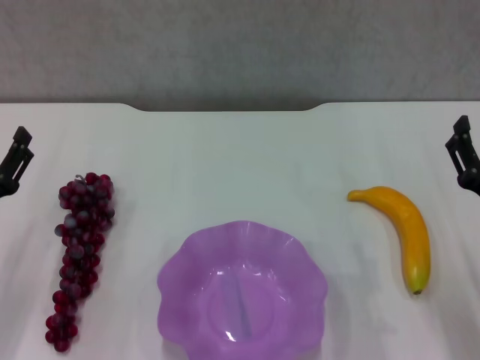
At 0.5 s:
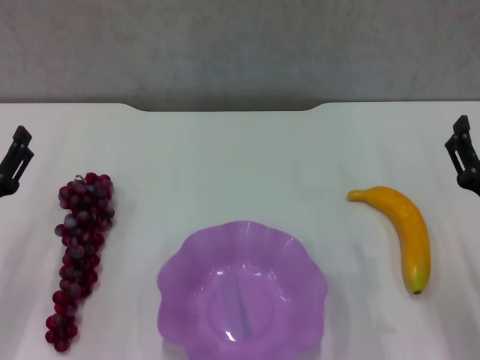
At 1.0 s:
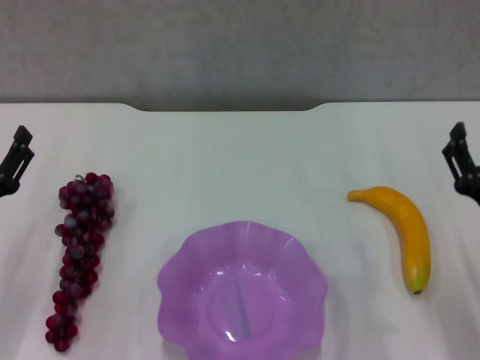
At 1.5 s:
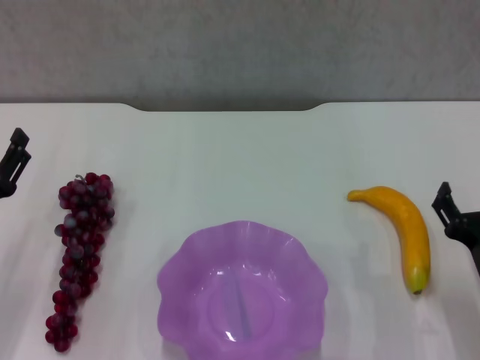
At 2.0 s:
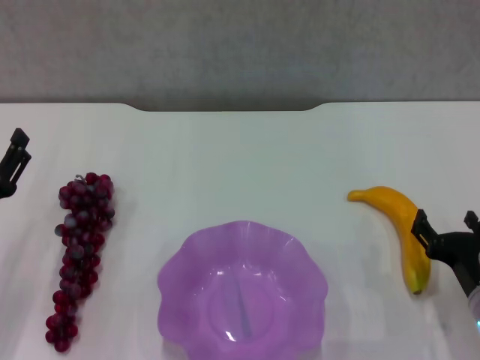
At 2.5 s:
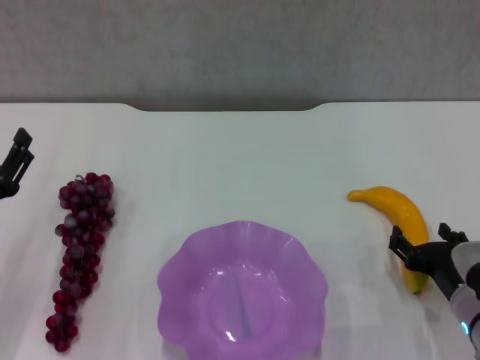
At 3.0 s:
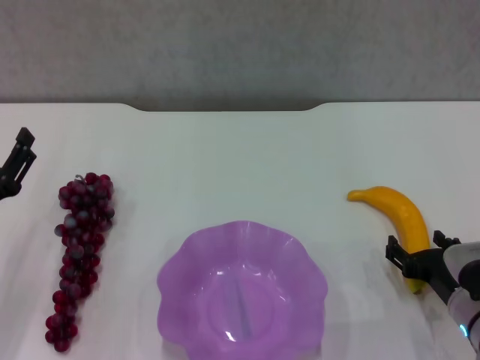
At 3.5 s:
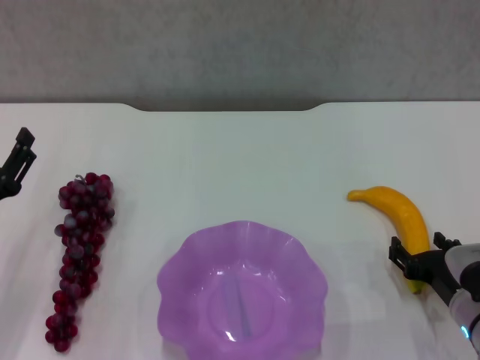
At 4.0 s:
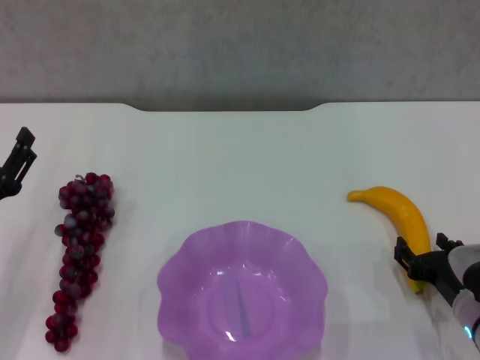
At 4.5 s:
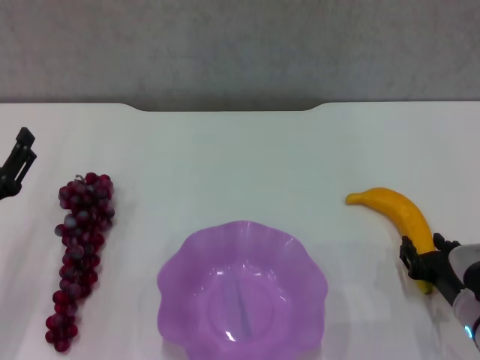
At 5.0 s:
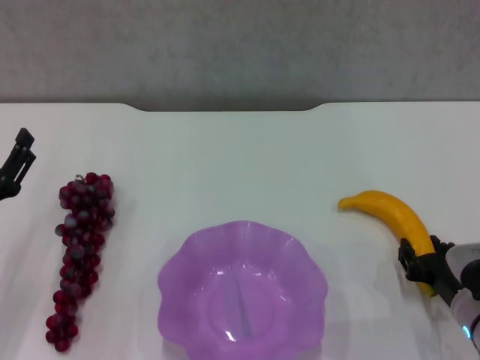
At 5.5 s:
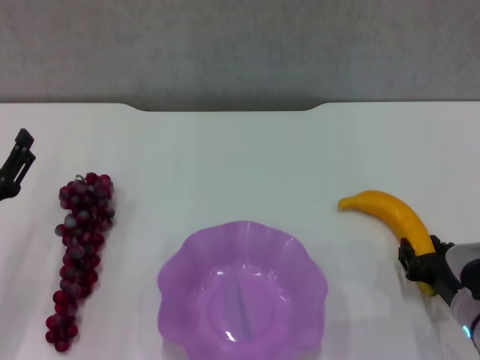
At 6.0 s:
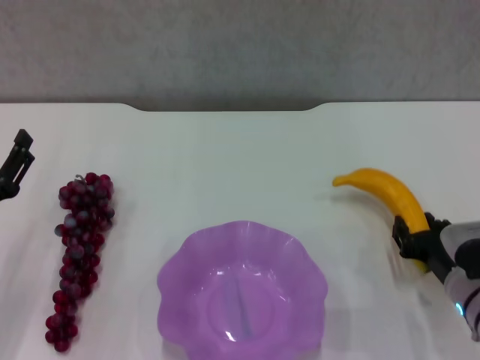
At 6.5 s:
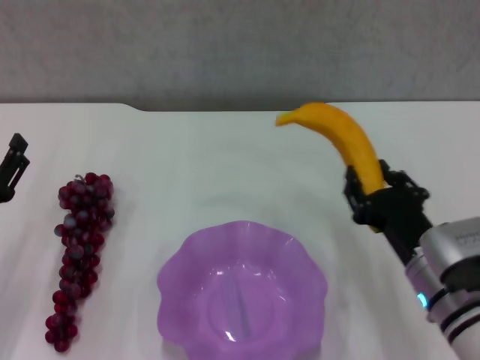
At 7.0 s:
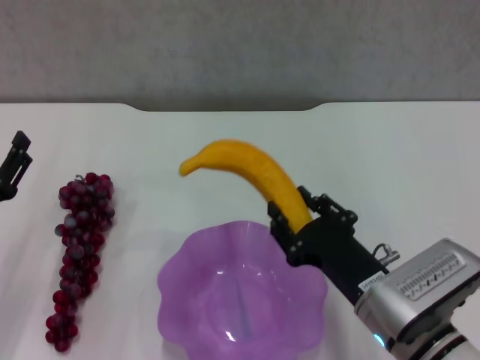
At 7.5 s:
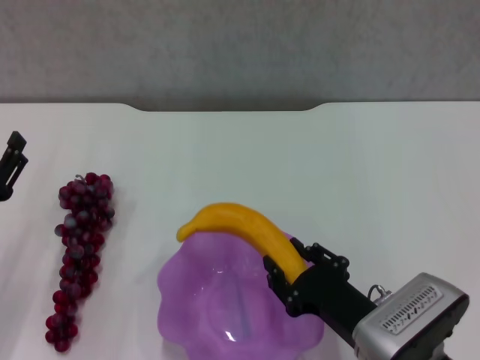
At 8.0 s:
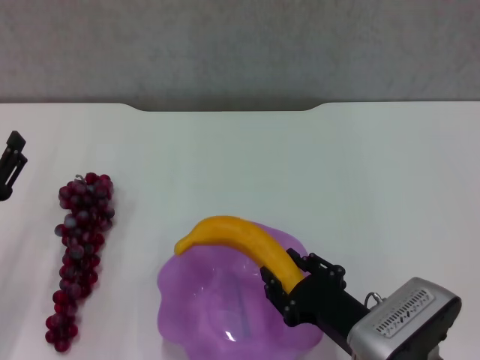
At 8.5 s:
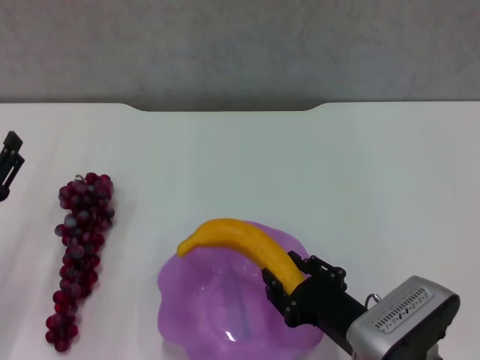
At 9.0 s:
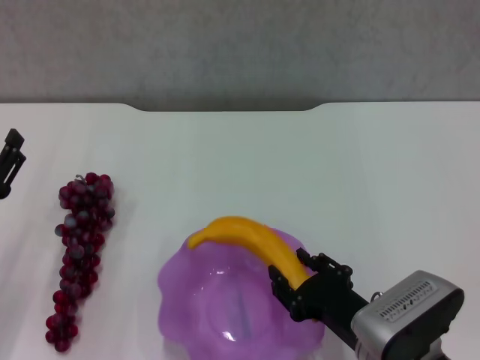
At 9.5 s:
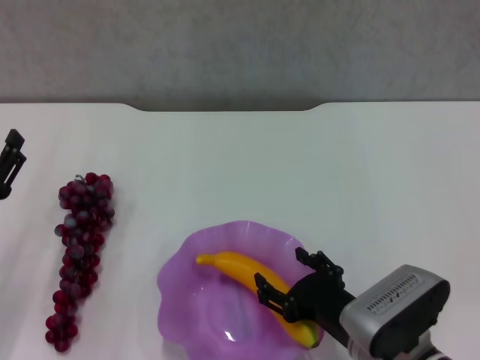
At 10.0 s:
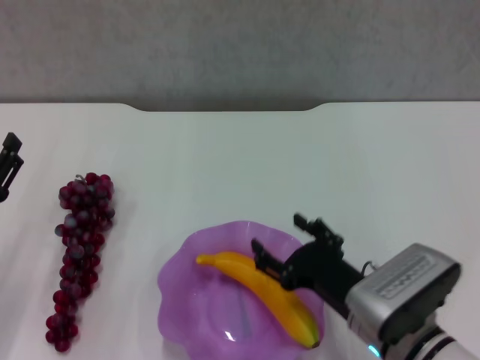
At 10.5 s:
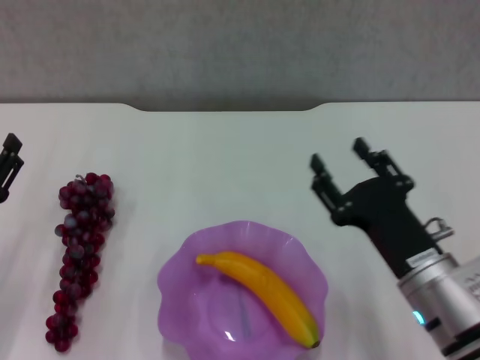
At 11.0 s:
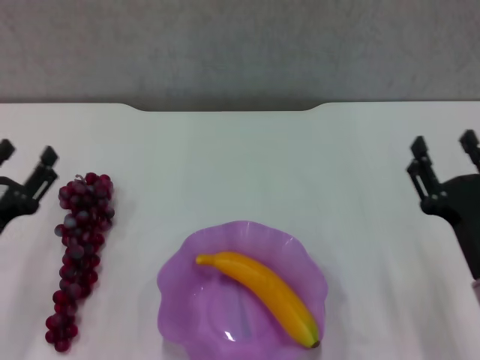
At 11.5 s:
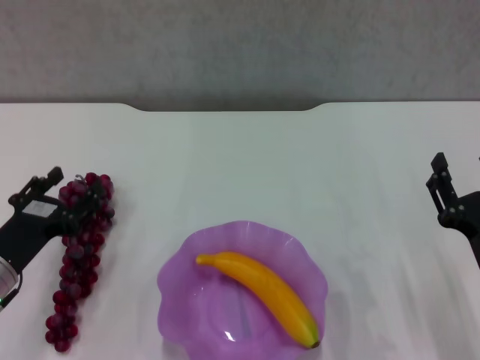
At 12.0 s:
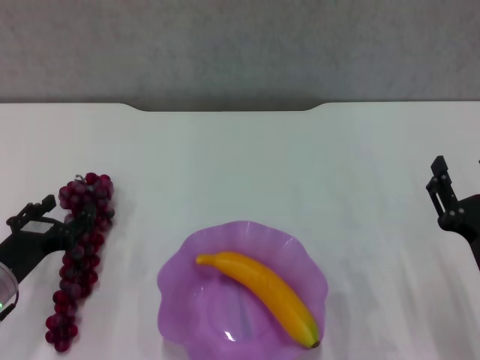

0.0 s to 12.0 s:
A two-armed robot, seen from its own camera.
Step, 0.0 to 4.5 s: Grasp the banana with right gripper.
Step, 5.0 to 9.0 s: Place the banana in the purple plate with right gripper.
0.0 to 2.0 s: The right gripper shifts some 5 cm downward.
2.0 to 4.0 s: The grippers move only a little.
4.0 to 6.0 s: The right gripper closes its fingers.
6.0 to 8.0 s: The right gripper heads to the left and backward, covering some 10 cm.
8.0 to 10.0 s: The right gripper opens its fingers.
10.0 to 12.0 s: The left gripper ends up roughly 5 cm from where it was. The right gripper goes some 10 cm to the right.

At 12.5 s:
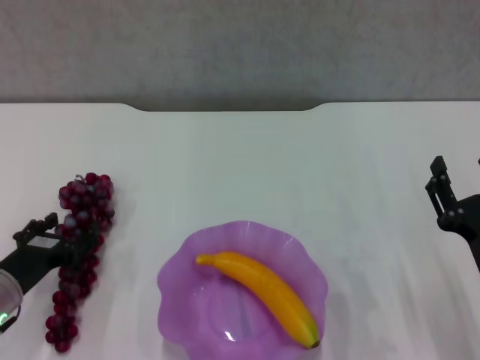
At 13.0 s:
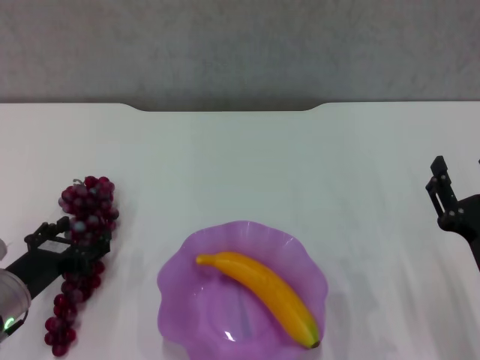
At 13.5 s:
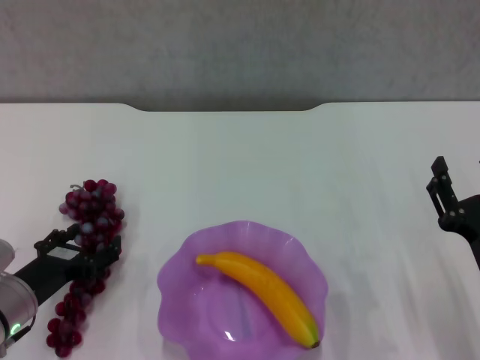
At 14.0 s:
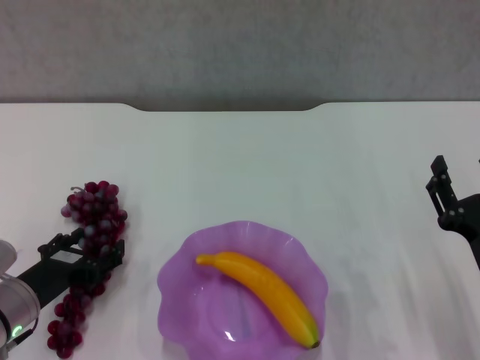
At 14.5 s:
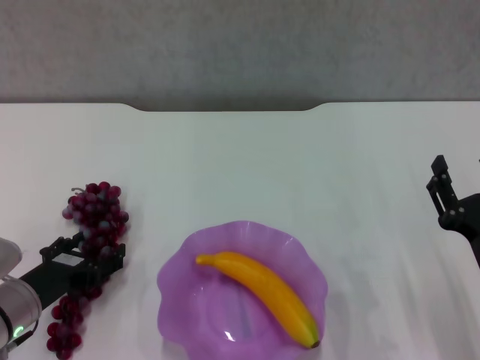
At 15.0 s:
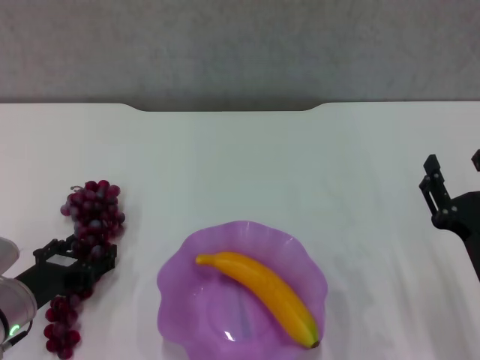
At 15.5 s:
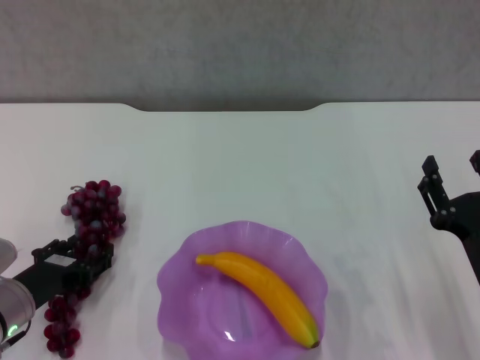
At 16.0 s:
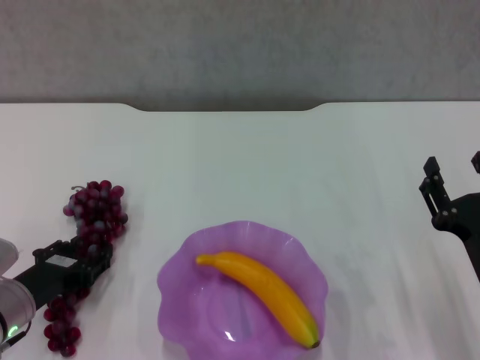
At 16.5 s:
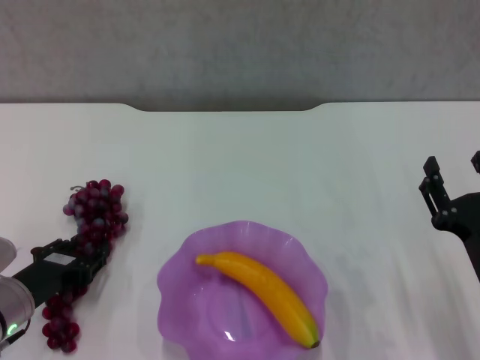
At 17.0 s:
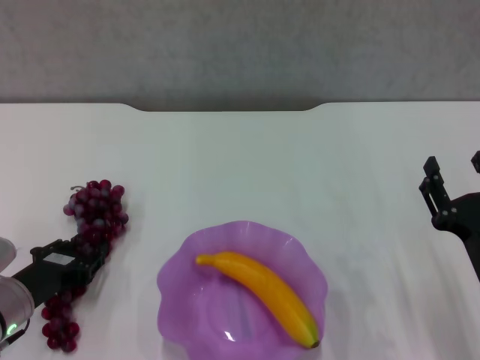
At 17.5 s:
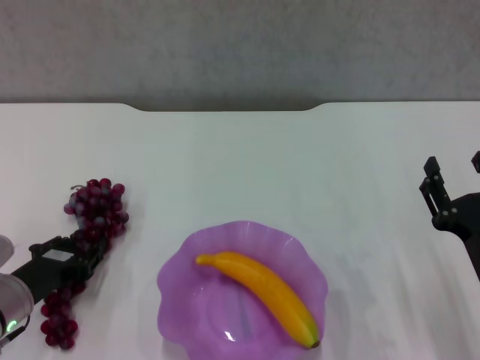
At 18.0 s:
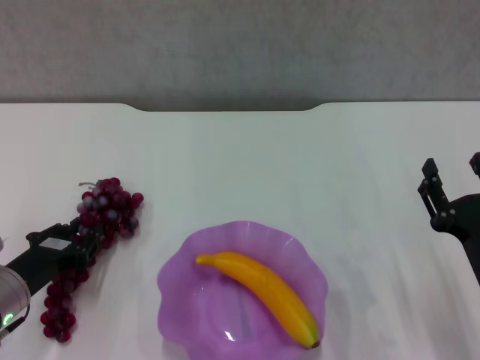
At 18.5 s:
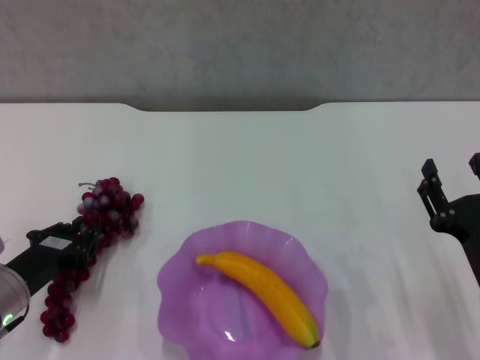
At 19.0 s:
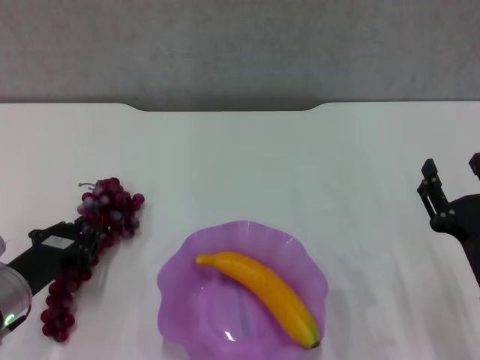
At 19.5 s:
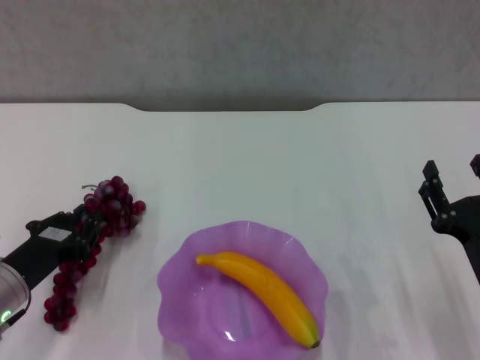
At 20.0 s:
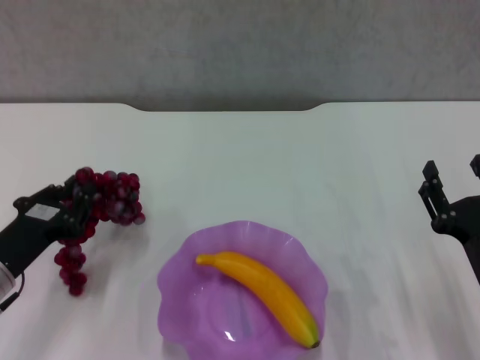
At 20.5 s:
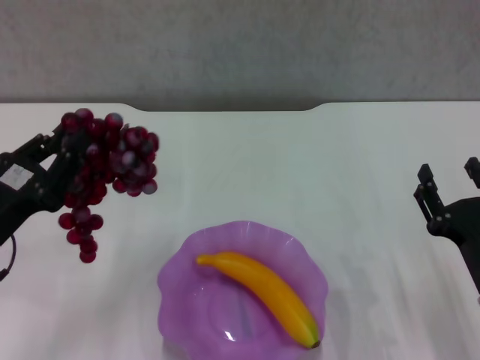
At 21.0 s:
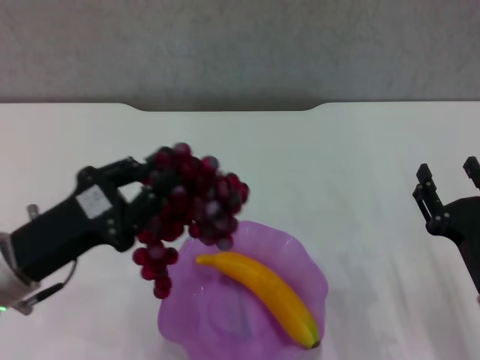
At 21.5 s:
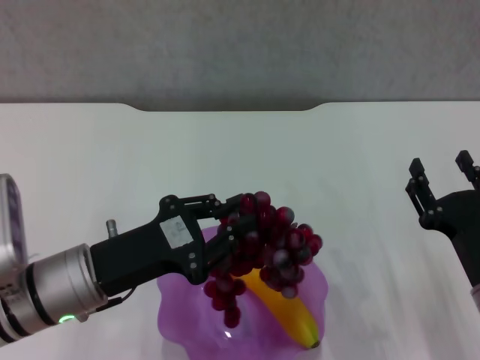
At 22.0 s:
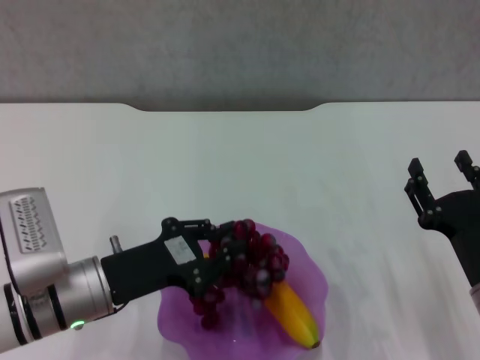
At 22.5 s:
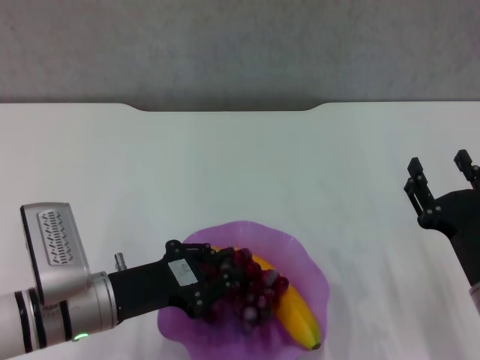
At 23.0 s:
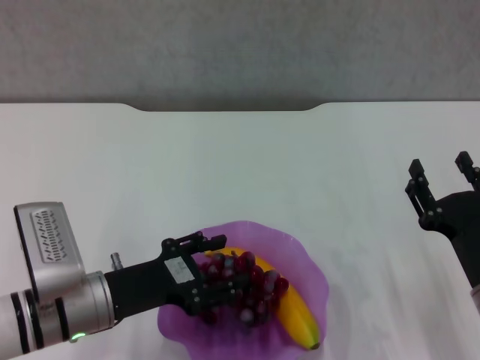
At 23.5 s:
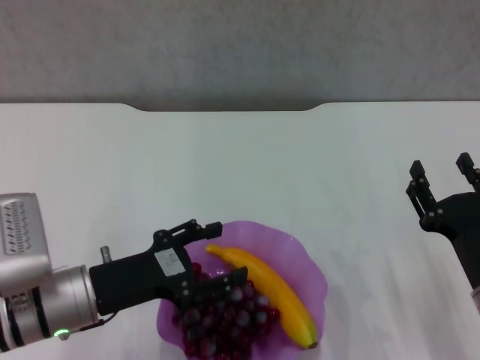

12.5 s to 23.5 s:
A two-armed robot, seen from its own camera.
Step, 12.5 to 16.0 s: Grasp the grape with left gripper.
Step, 16.5 to 23.0 s: Place the grape in the purple plate with left gripper.
12.5 to 14.5 s: The grippers stay close to where they were, moving slightly.
14.5 to 16.0 s: Both grippers stay put.
16.0 to 18.0 s: There are only small adjustments of the grippers.
18.0 to 20.0 s: The grippers move only a little.
20.0 to 21.5 s: The left gripper is displaced to the right by about 10 cm.
21.5 to 23.5 s: The left gripper opens.

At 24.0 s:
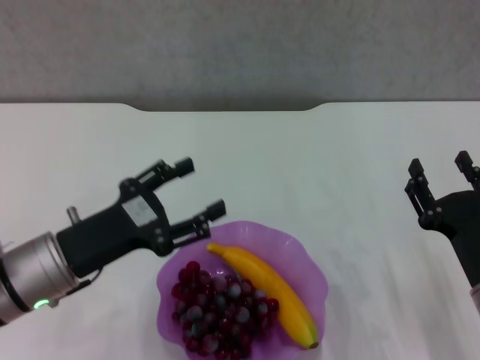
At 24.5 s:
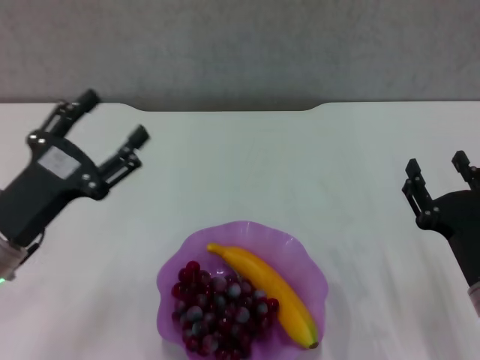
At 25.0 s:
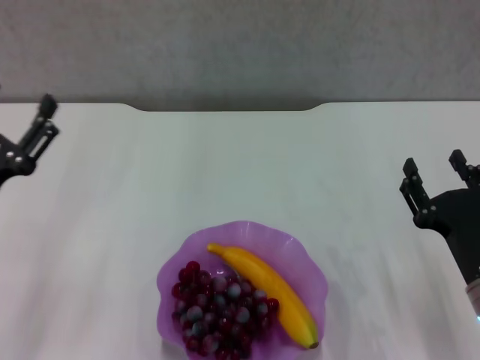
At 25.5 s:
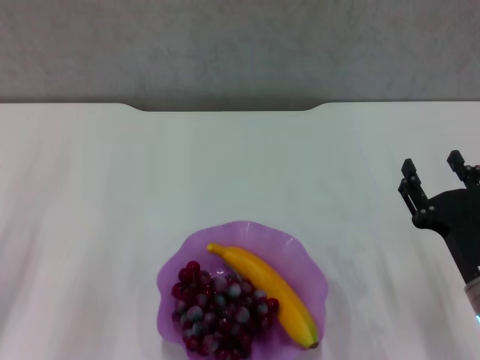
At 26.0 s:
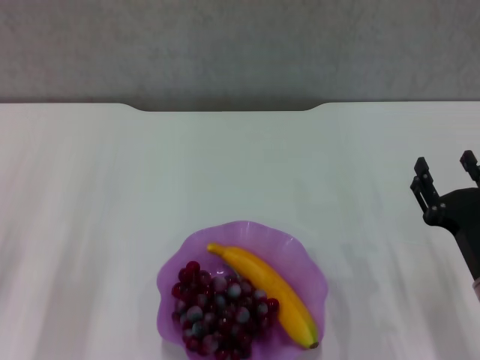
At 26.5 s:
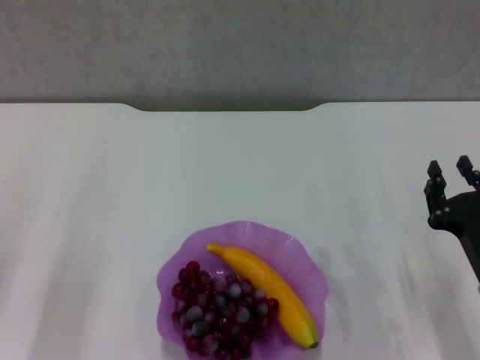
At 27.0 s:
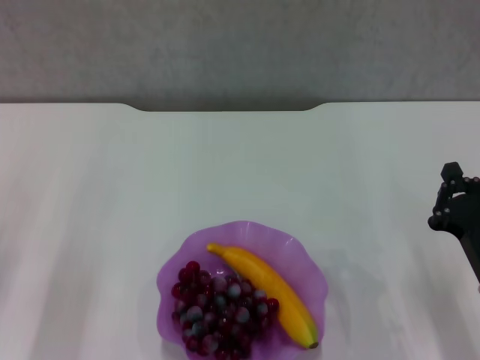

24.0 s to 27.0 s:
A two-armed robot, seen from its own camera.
24.0 to 25.5 s: The left gripper travels to the left by roughly 10 cm.
25.5 to 27.0 s: The left gripper closes. Meanwhile the right gripper closes up.
